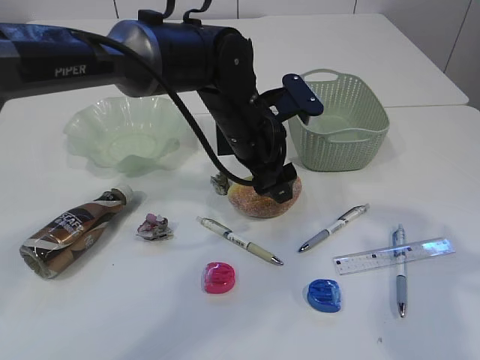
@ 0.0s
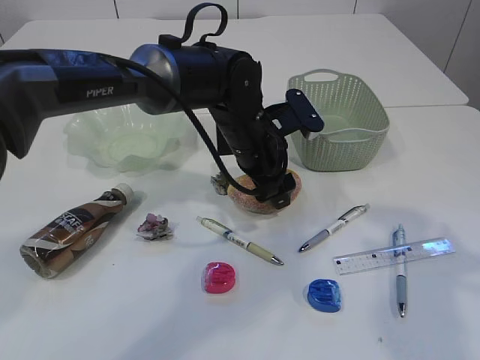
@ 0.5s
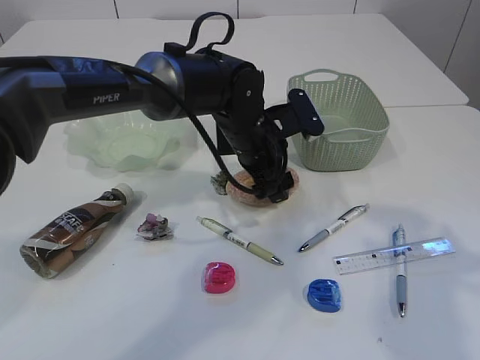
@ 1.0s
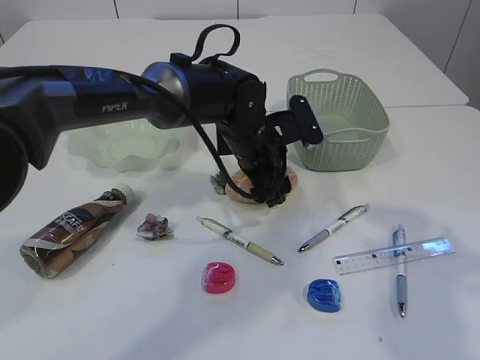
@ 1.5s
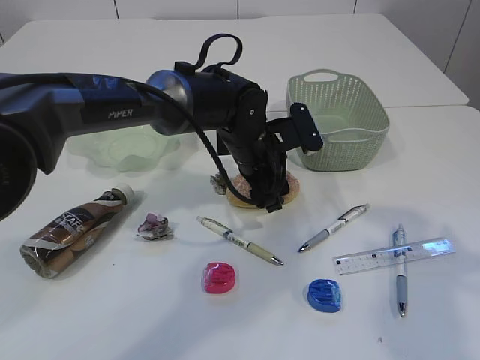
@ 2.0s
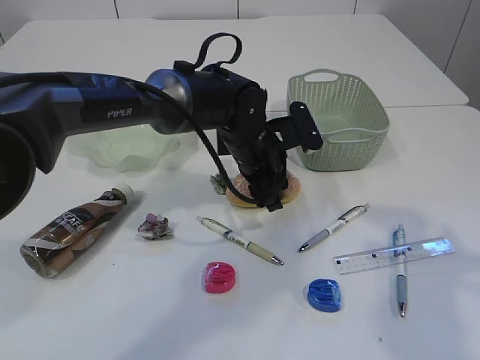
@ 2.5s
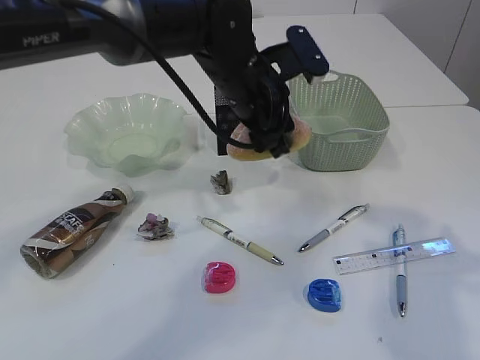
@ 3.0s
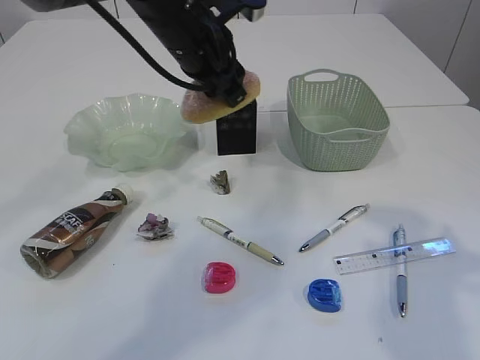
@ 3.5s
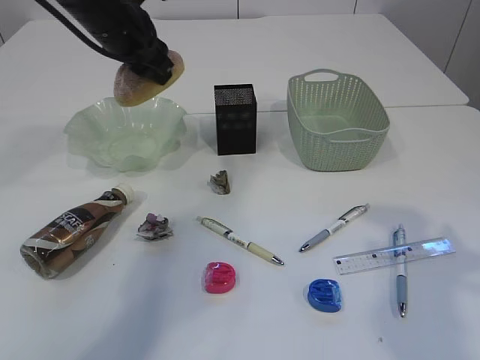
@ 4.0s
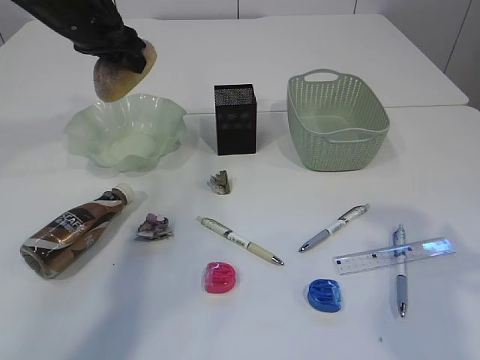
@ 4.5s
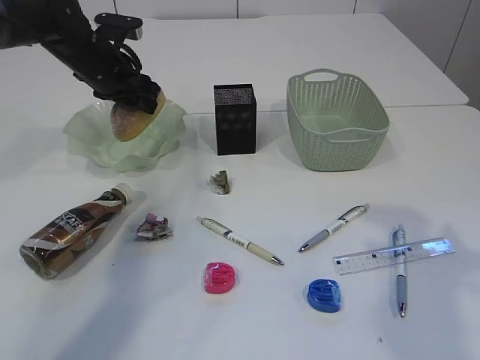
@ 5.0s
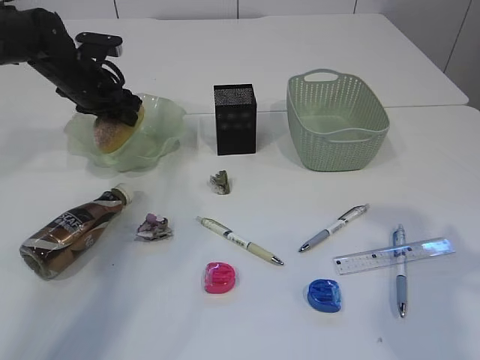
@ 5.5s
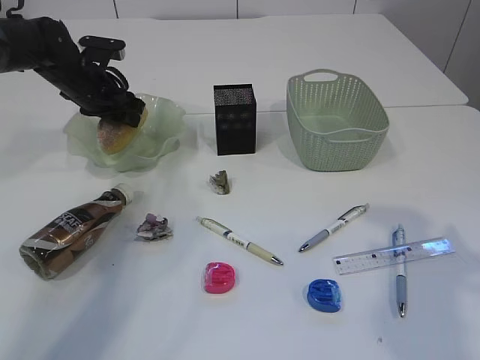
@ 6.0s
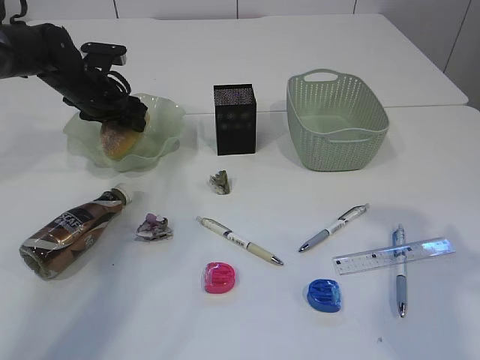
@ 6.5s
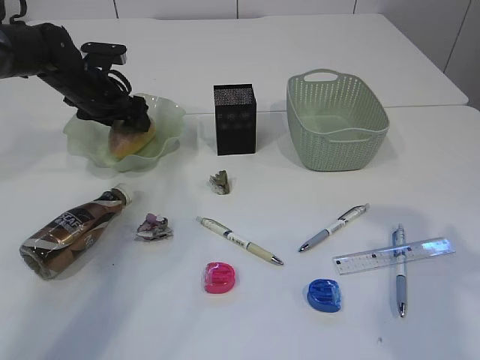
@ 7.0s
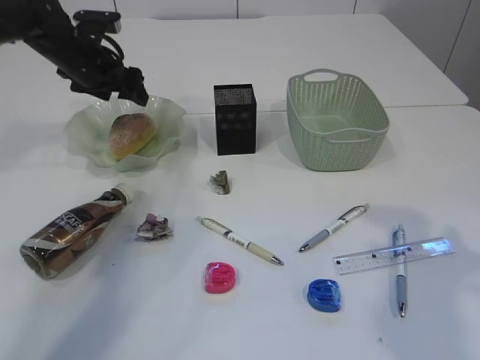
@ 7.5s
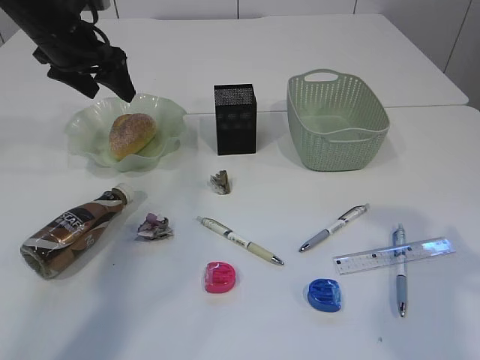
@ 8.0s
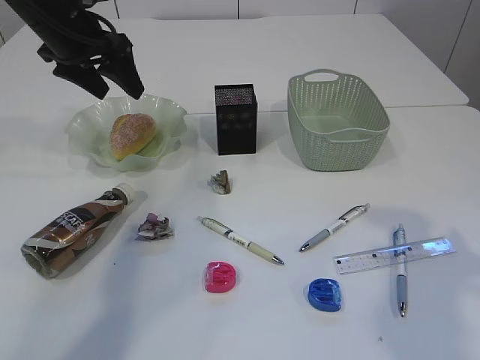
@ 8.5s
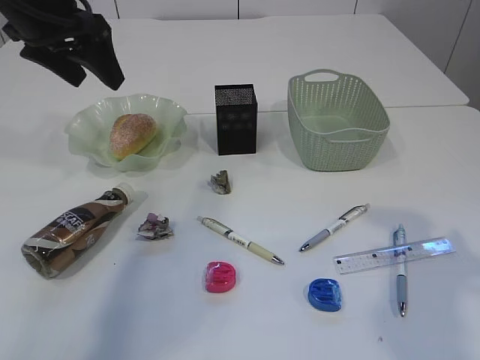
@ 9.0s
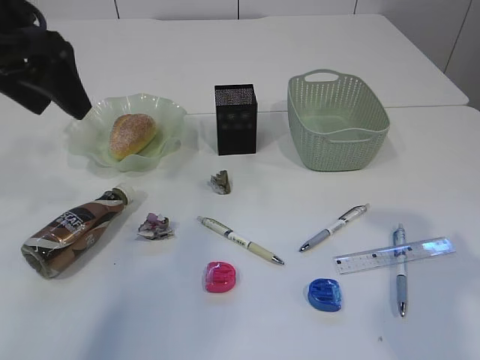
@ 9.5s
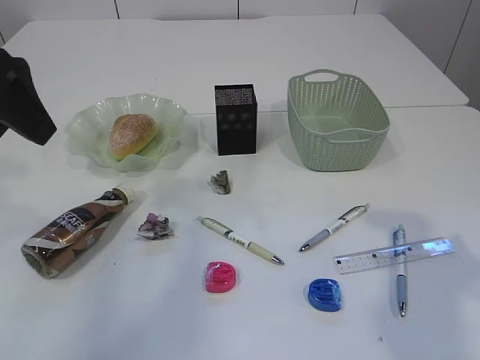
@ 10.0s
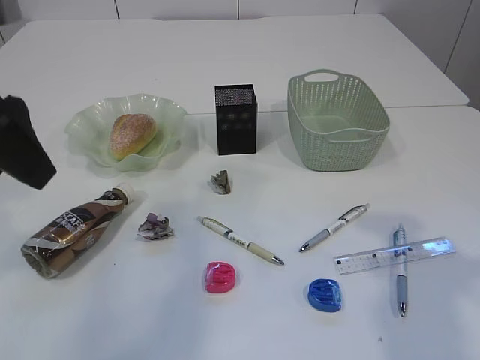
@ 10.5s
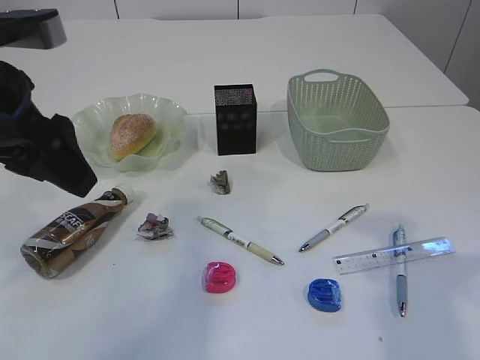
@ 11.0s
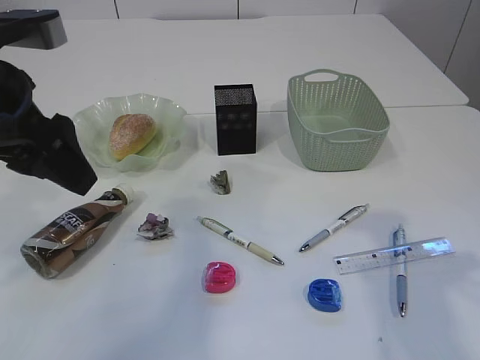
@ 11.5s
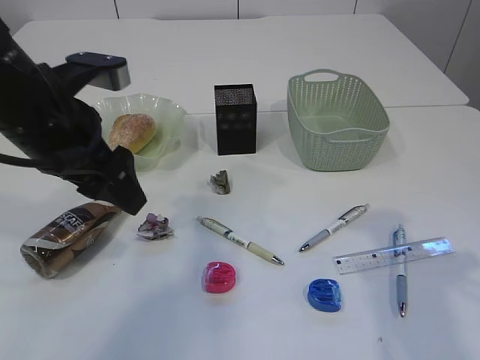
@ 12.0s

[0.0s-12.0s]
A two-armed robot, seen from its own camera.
Step, 3.5s to 8.0s: place the bread in the plate.
0.0s to 2.0s: The left gripper heads downward, covering about 5 cm.
2.0s to 4.0s: The left gripper travels to the left and upward by about 20 cm.
4.0s to 6.0s: The left gripper heads downward, to the left and forward, covering about 15 cm.
6.0s to 8.0s: The left gripper moves upward, some 10 cm, and opens up.
8.0s to 10.0s: The left gripper travels backward and upward by roughly 20 cm.
10.0s to 12.0s: The left gripper goes about 10 cm downward and to the right.

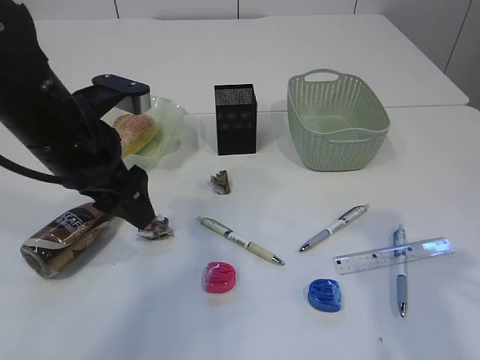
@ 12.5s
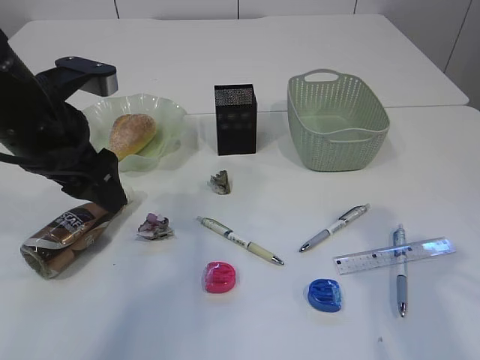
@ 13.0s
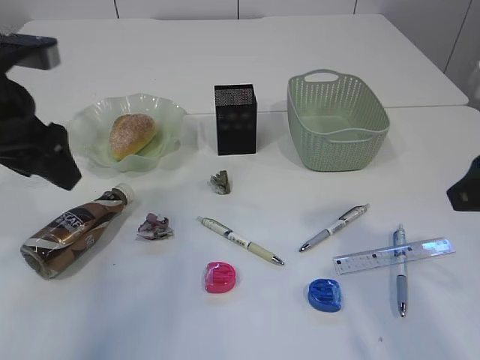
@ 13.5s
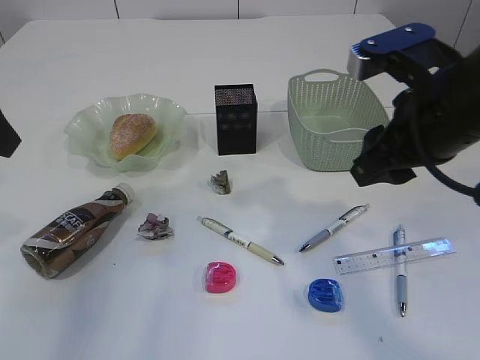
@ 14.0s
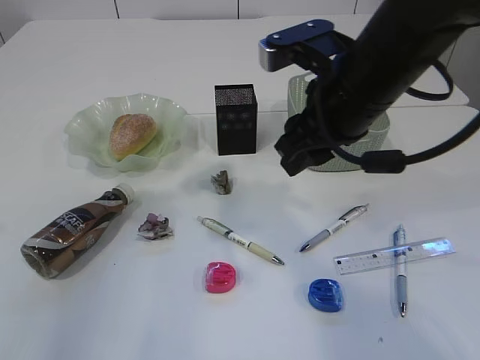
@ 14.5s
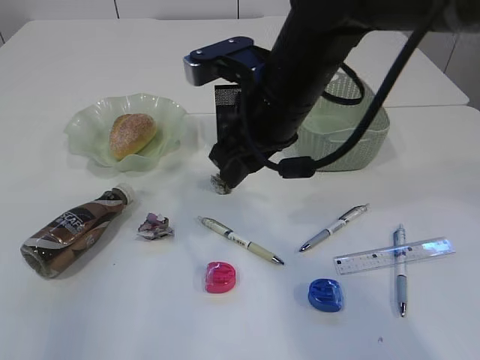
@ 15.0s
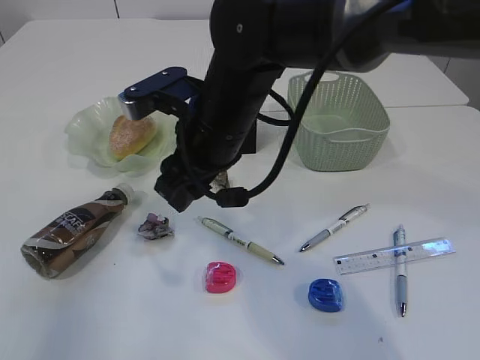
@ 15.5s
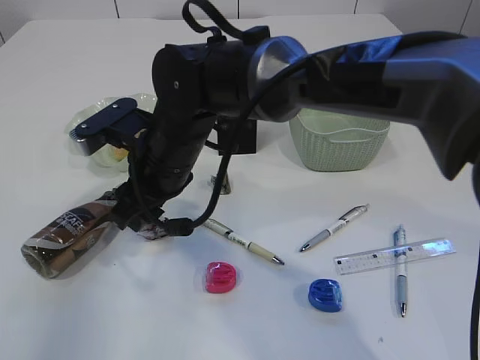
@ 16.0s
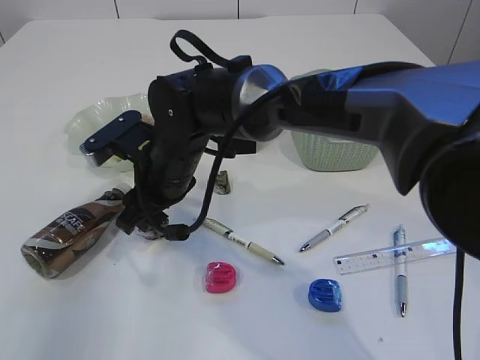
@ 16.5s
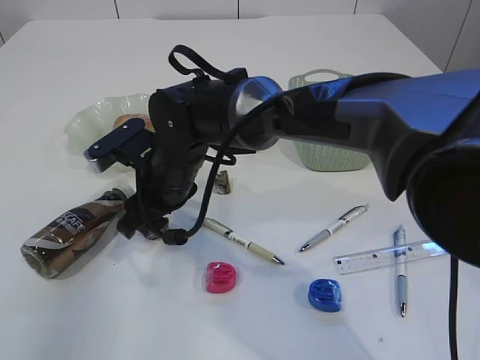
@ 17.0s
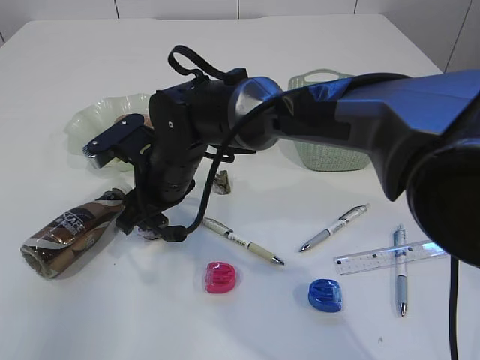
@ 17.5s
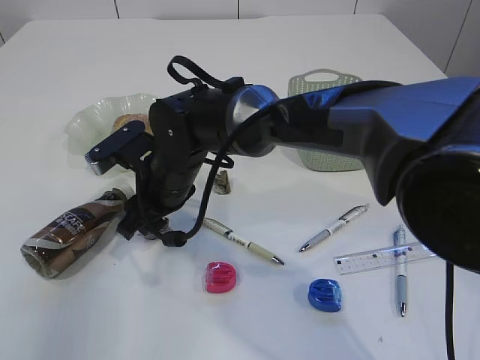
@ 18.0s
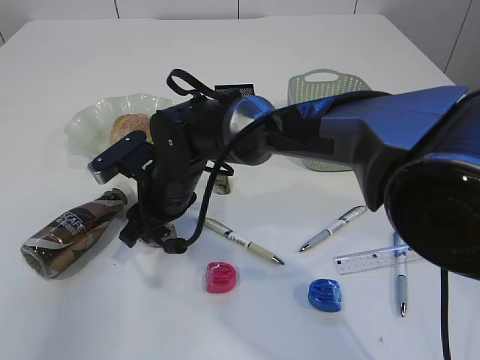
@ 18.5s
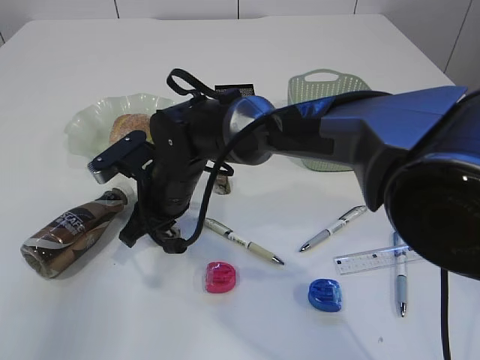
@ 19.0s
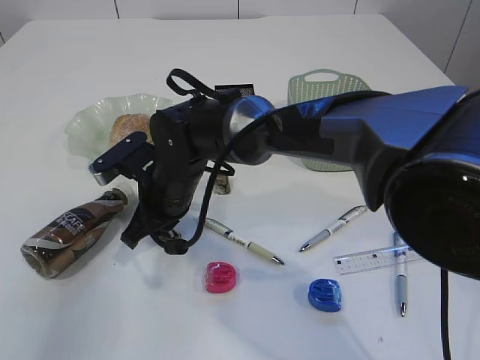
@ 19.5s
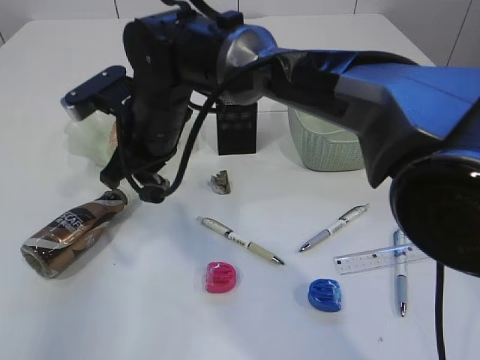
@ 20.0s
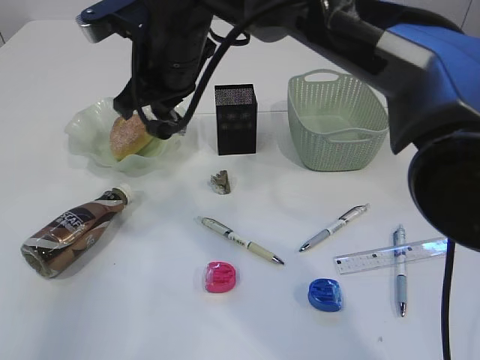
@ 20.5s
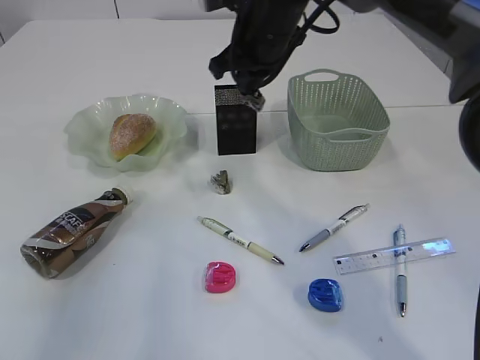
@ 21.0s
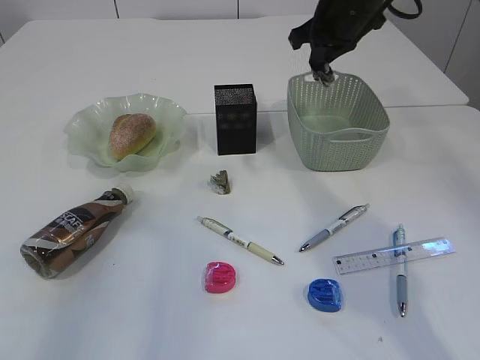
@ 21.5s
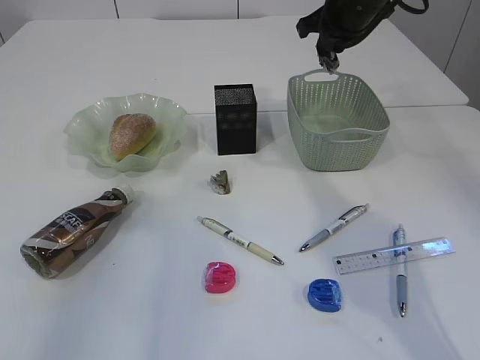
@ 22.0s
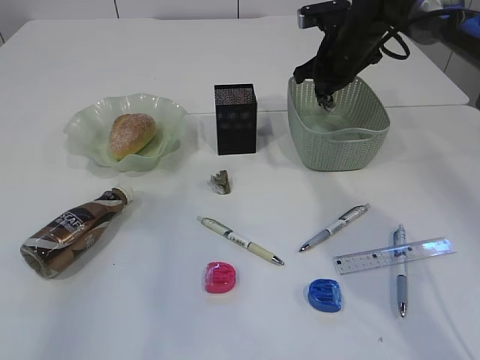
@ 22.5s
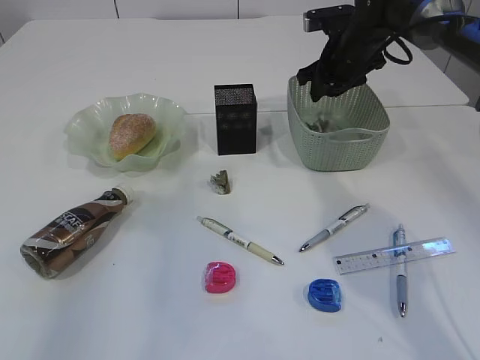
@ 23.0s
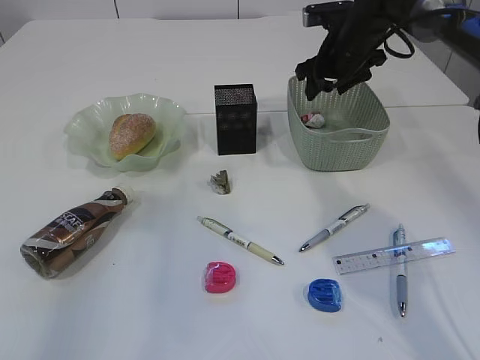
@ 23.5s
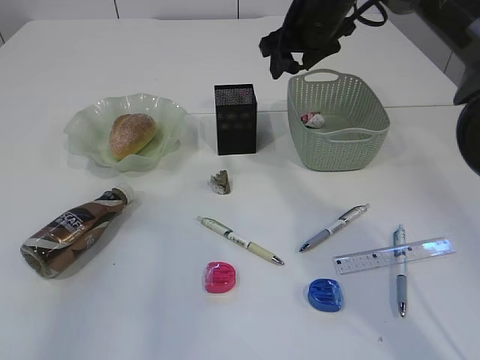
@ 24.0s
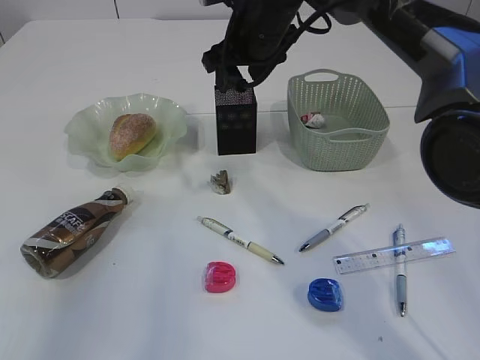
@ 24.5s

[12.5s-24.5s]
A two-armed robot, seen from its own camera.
Step, 12.5s to 20.0s: Pick up the waste paper.
Step, 20.5s to 23.0s: Place the waste paper in the basket.
12.5s to 14.5s: The left gripper shifts roughly 15 cm to the left, upward and backward. Meanwhile the right gripper heads to the left and forward, covering approximately 20 cm.
14.5s to 16.5s: The right gripper is displaced to the left and downward by about 20 cm.
18.5s to 20.5s: The right gripper shifts some 15 cm upward, and closes.
20.5s to 22.5s: The right gripper heads to the right and forward, covering about 30 cm.
22.5s to 24.5s: The right gripper is displaced to the left by roughly 15 cm, and opens its fingers.

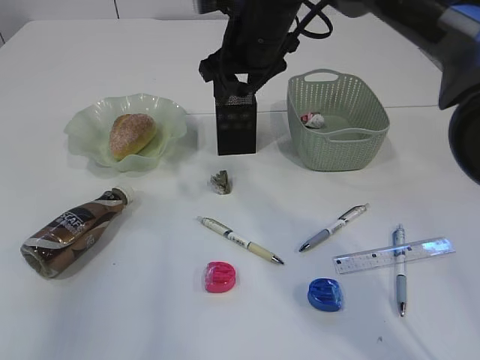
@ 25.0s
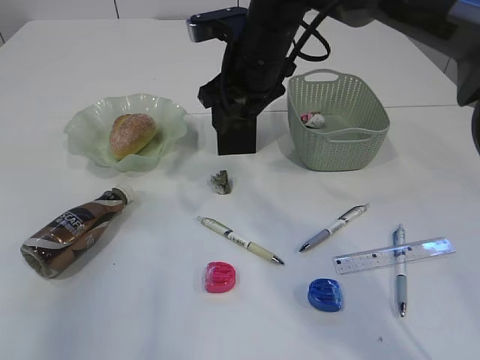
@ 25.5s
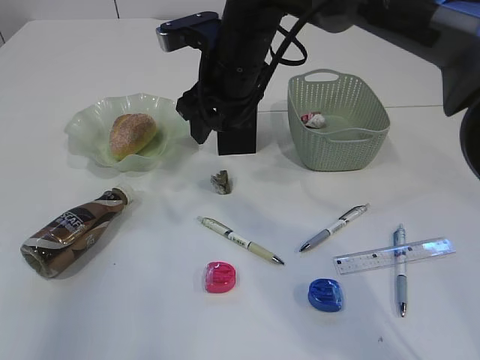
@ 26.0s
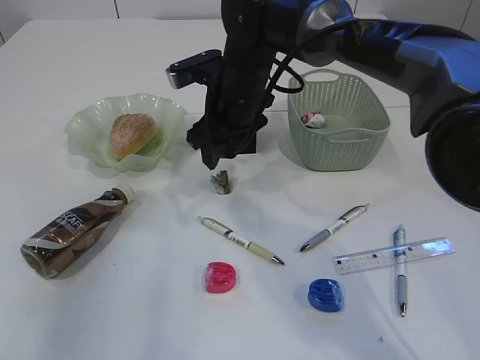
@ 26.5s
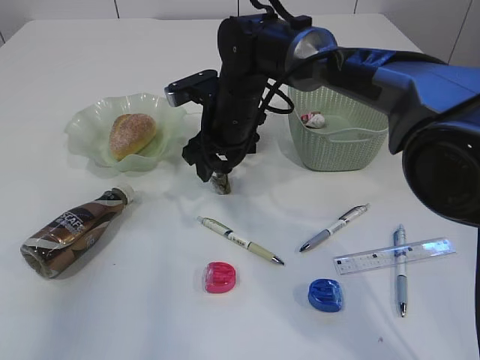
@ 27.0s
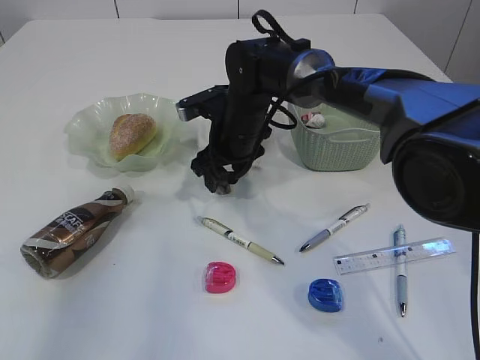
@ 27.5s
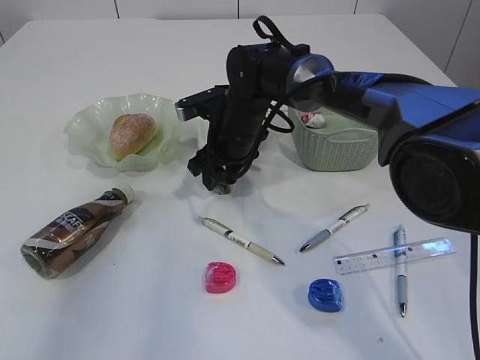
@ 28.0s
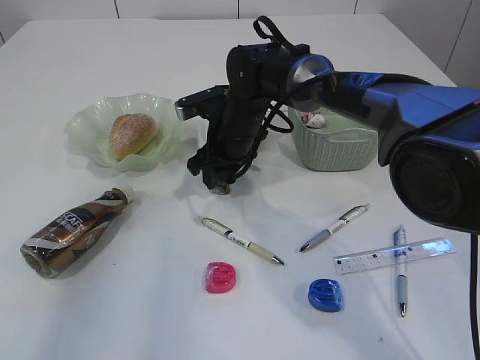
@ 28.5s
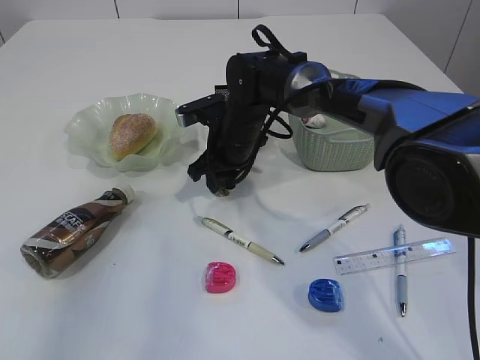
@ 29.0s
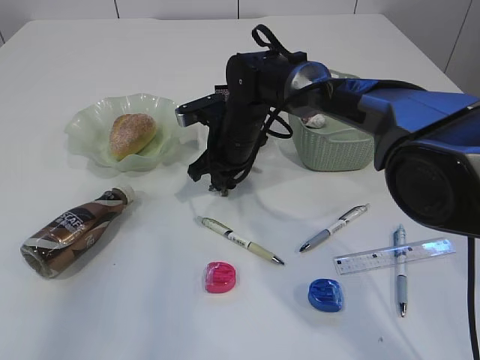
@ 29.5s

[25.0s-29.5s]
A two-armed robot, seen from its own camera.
25.0s to 27.0s: The right gripper travels downward by some 10 cm.
27.0s to 29.5s: The right gripper closes its fingers.
